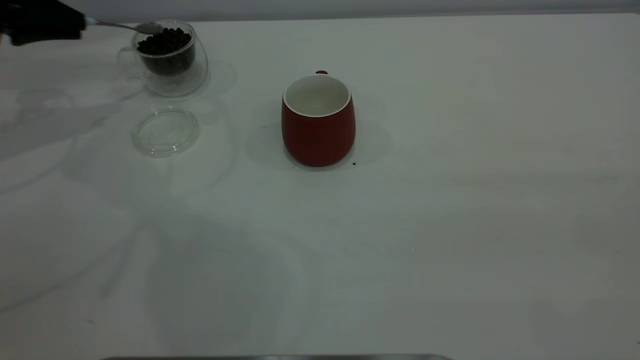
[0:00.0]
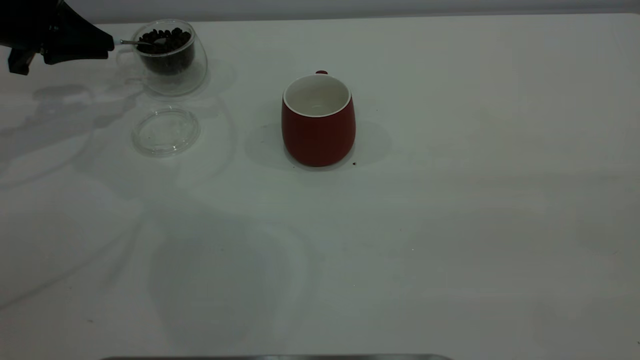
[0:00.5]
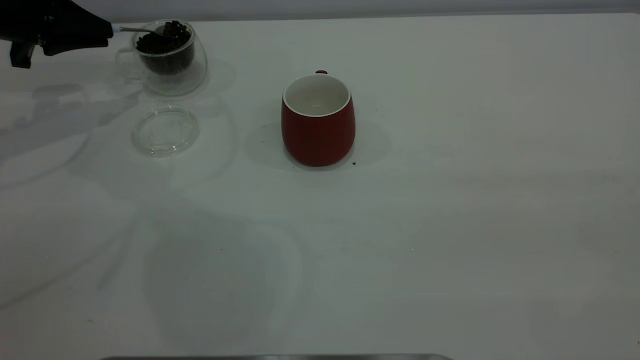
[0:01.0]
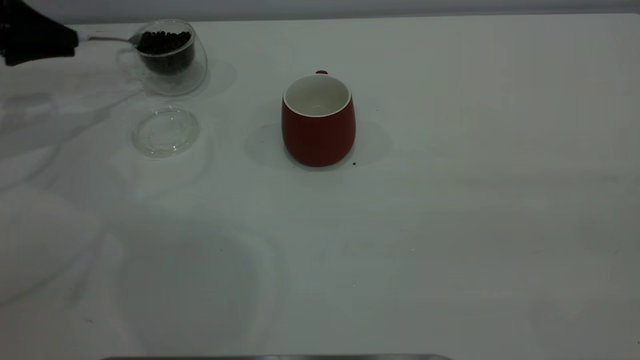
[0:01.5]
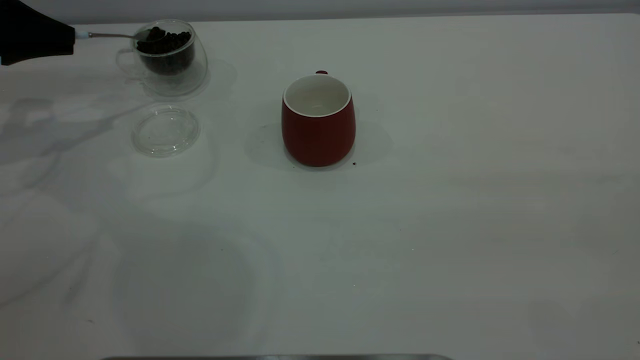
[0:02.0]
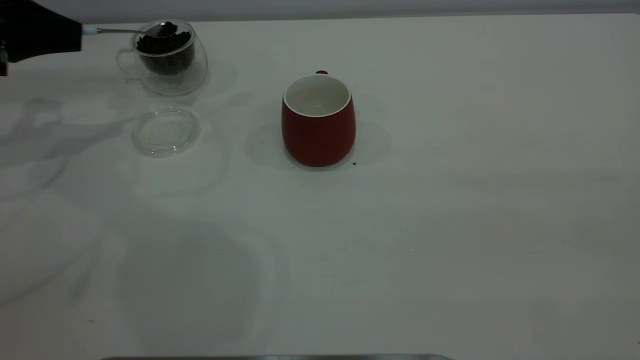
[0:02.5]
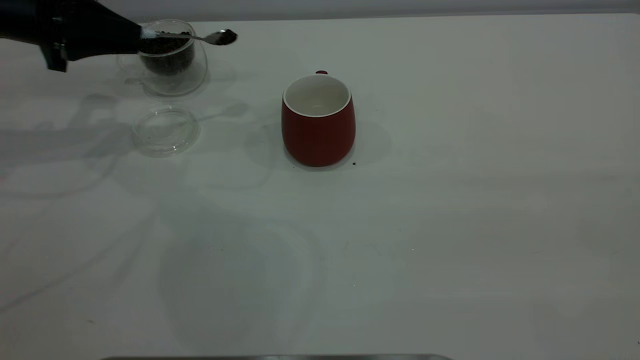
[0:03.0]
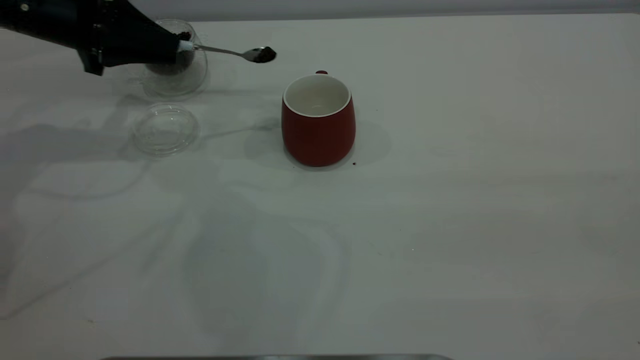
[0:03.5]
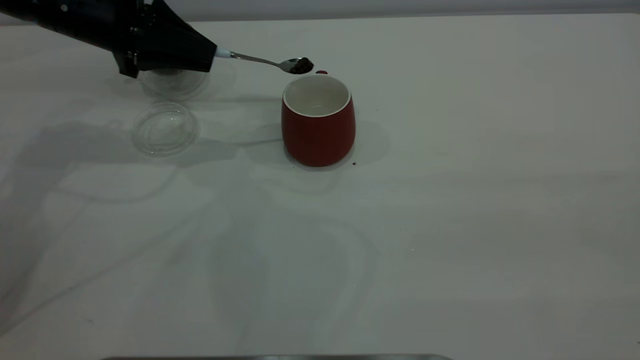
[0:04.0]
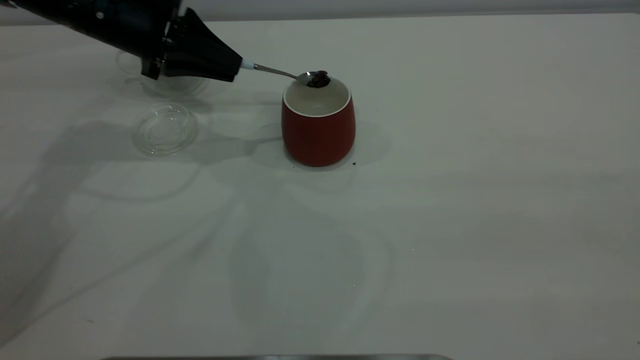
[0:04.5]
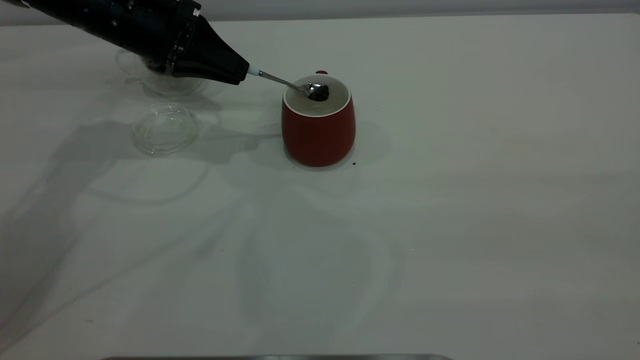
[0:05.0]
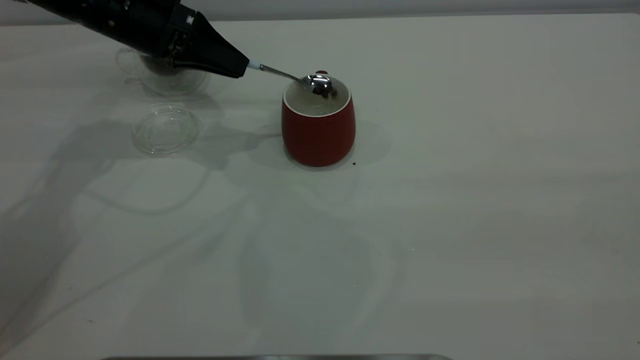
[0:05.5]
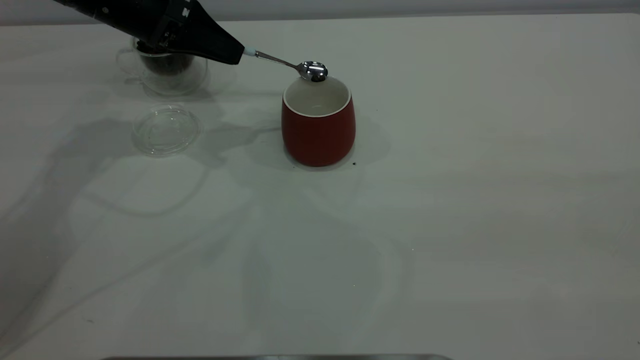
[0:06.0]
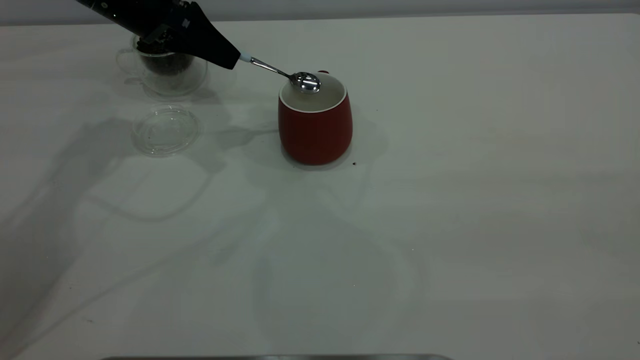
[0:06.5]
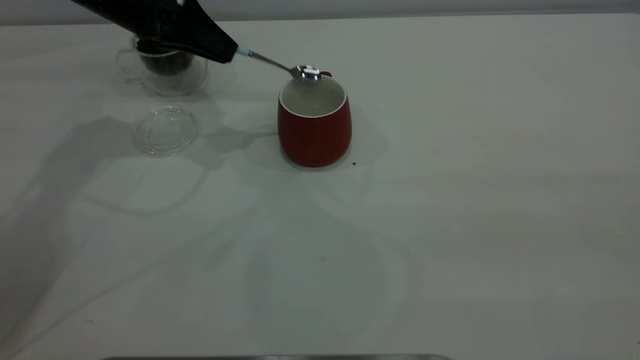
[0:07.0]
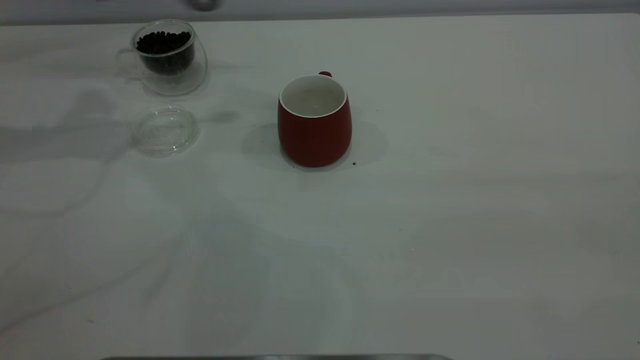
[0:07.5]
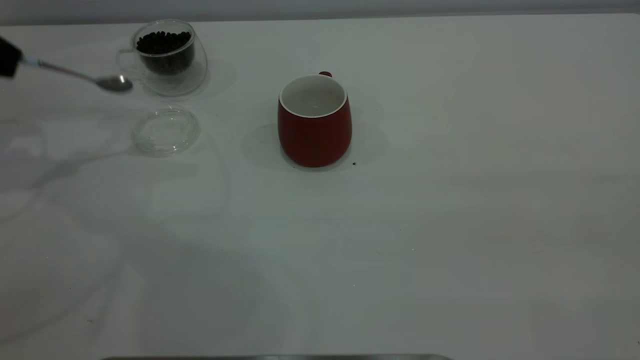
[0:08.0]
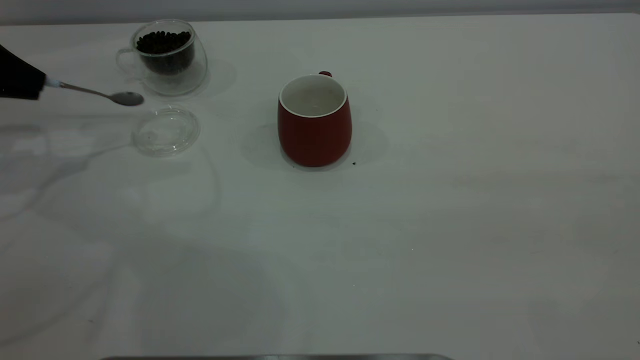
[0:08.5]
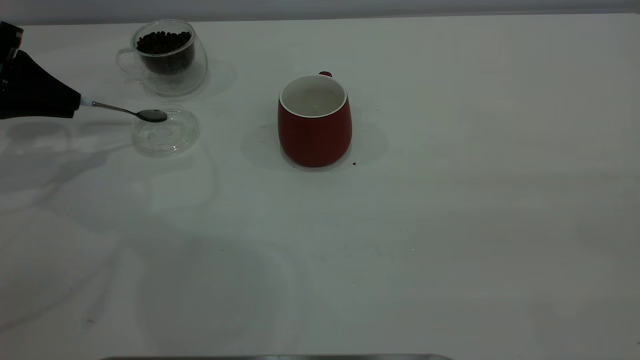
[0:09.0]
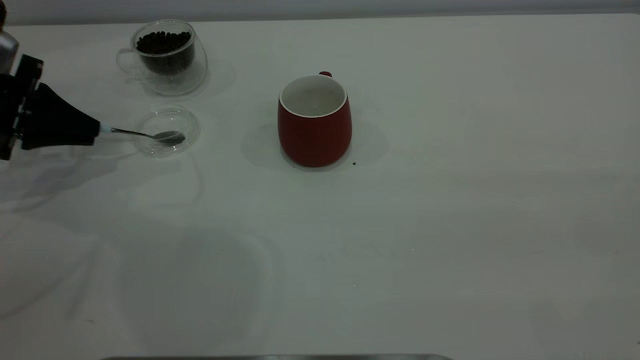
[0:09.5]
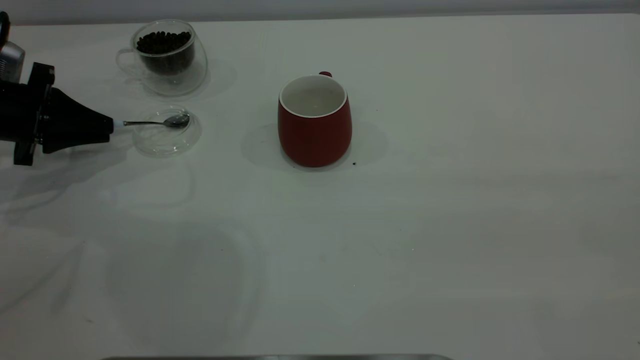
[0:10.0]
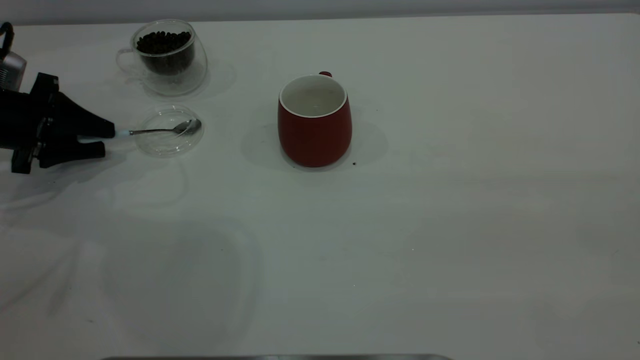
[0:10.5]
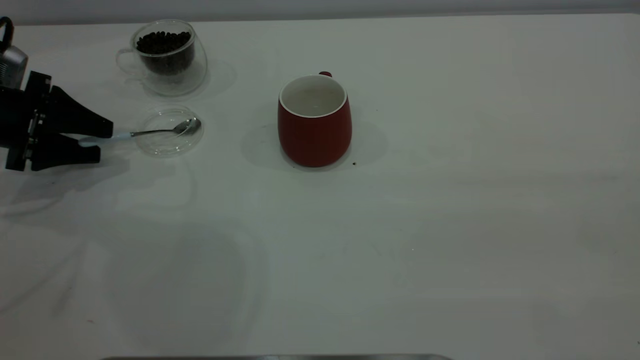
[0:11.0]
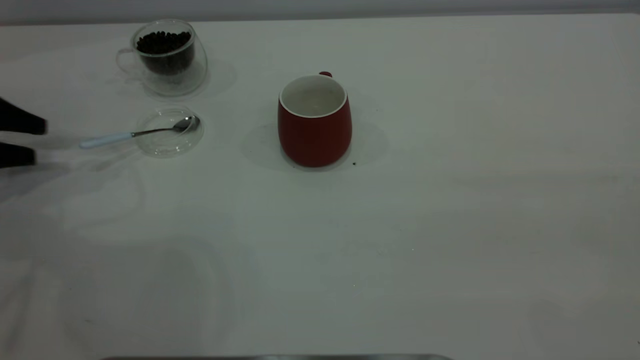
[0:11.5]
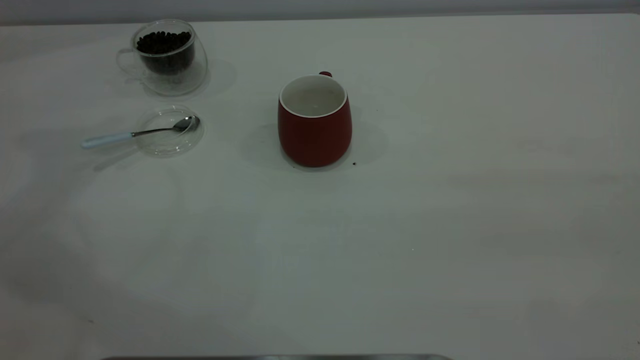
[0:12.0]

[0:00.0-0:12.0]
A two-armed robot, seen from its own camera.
Task of the whole recording: the right gripper place the red cup in the center of the table, the left gripper take the blue spoon from the cup lid and scoop out the coffee beans from the coffee cup and put them into the red cup, the left gripper put the spoon back into the cup lid.
Step, 0:00.0 to 0:07.0: Scoop a spoonful of beans into the cup.
Step, 0:07.5 to 0:11.0: Place the spoon back in its original place.
0:00.0 to 0:02.0: The grippers make only small movements.
0:02.0 to 0:04.0: The left gripper travels to the right by about 15 cm.
0:06.0 to 0:08.0: The left gripper heads to the left, covering approximately 20 cm.
0:08.0 to 0:10.0: The left gripper shifts about 10 cm downward.
0:10.0 to 0:12.0: The left gripper moves upward and to the left, roughly 25 cm, and opens.
